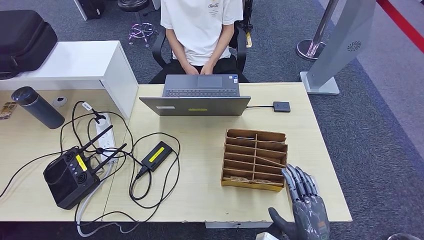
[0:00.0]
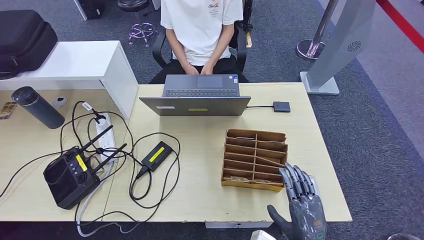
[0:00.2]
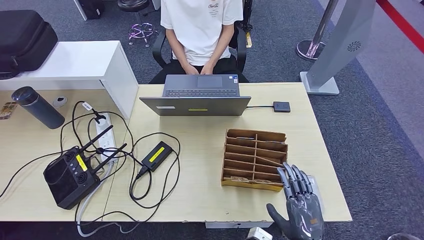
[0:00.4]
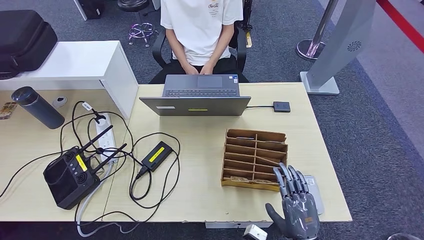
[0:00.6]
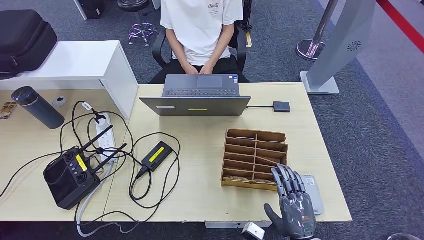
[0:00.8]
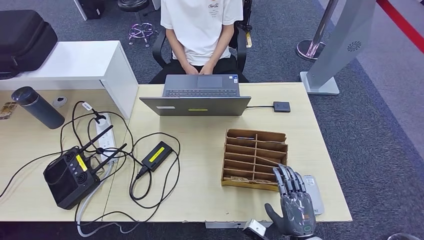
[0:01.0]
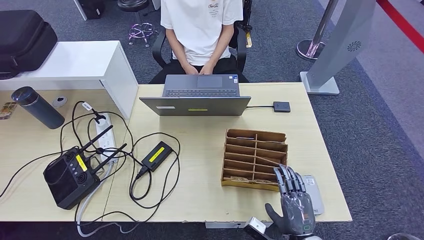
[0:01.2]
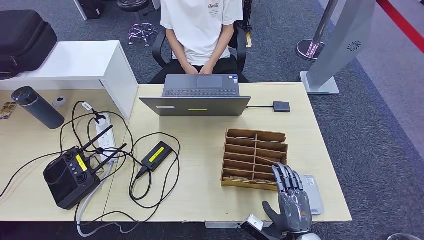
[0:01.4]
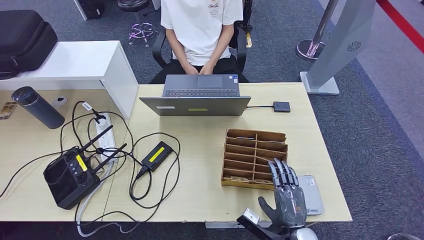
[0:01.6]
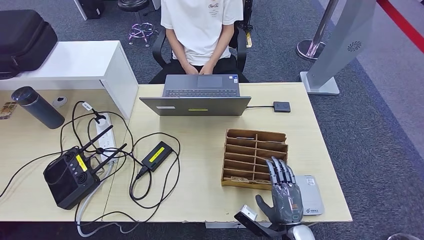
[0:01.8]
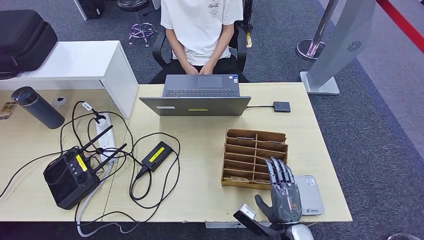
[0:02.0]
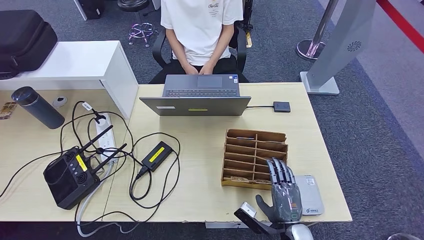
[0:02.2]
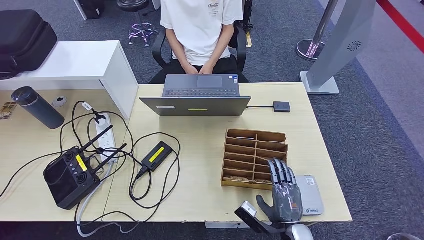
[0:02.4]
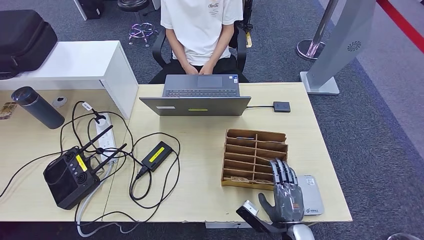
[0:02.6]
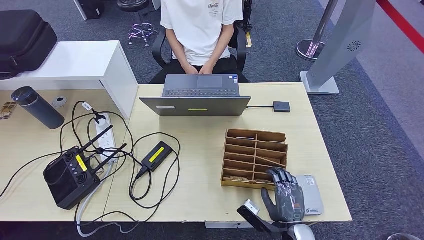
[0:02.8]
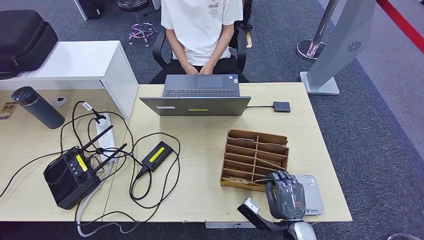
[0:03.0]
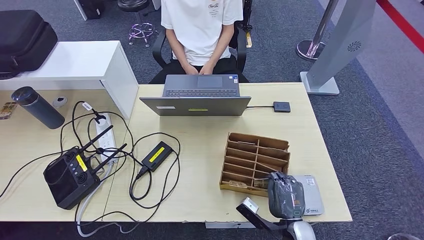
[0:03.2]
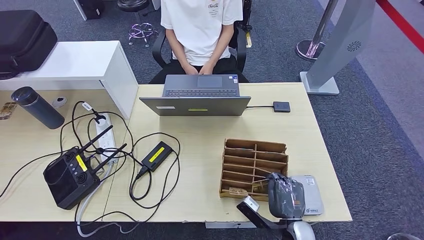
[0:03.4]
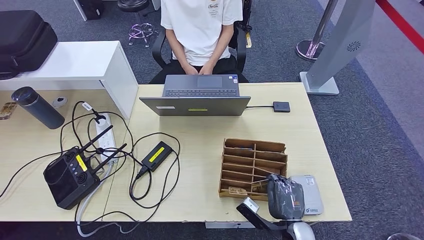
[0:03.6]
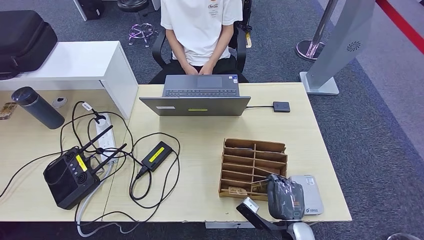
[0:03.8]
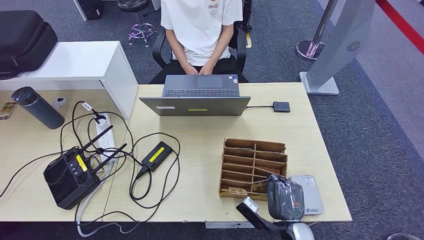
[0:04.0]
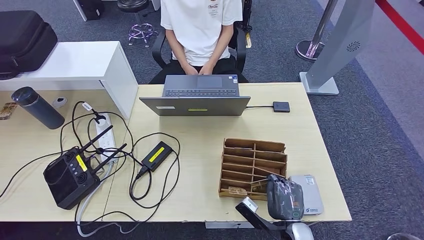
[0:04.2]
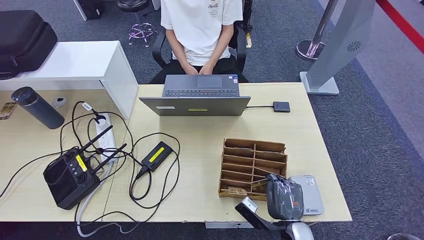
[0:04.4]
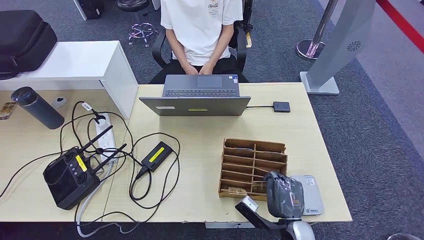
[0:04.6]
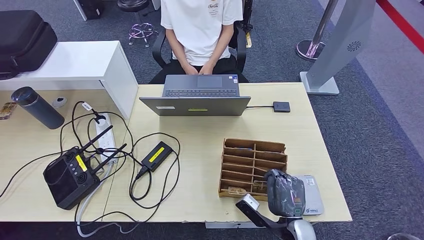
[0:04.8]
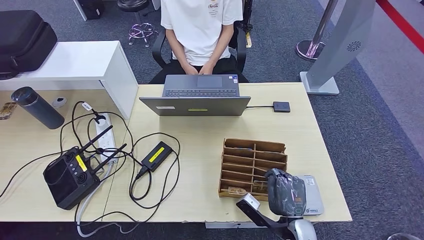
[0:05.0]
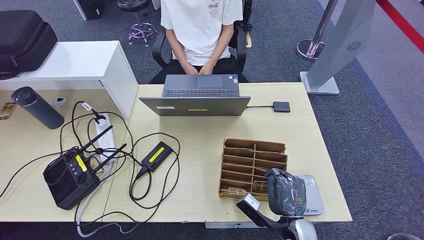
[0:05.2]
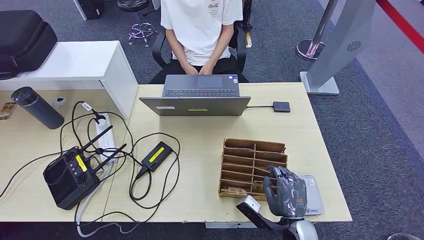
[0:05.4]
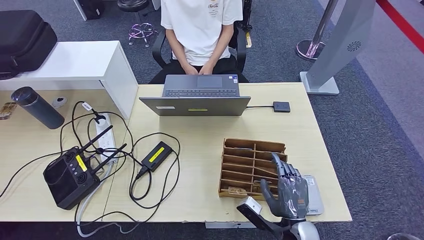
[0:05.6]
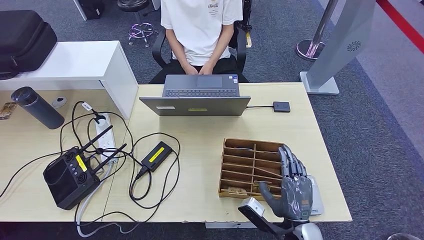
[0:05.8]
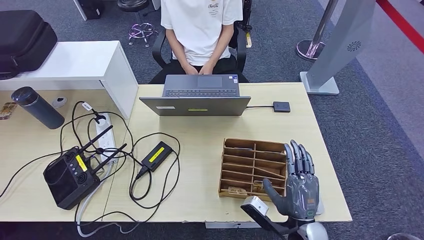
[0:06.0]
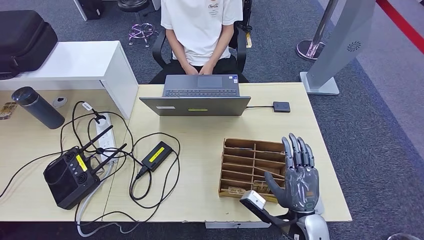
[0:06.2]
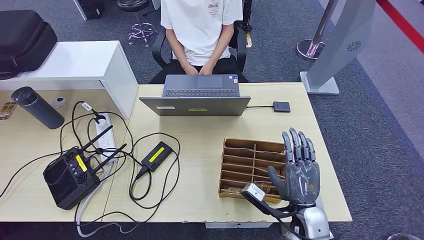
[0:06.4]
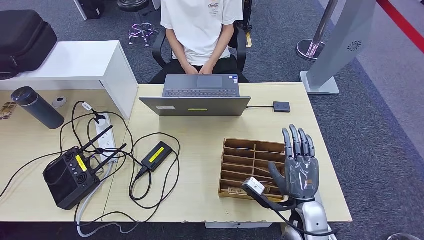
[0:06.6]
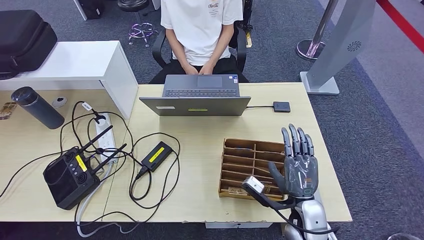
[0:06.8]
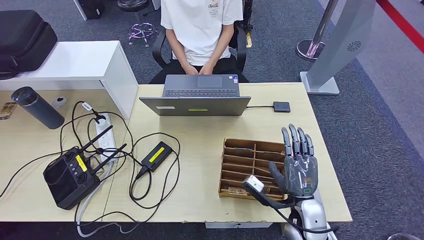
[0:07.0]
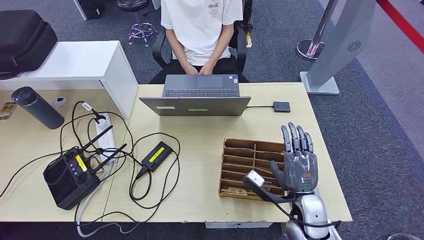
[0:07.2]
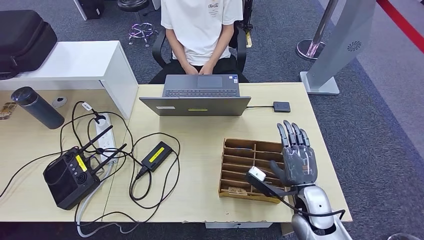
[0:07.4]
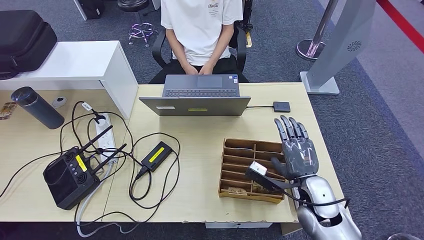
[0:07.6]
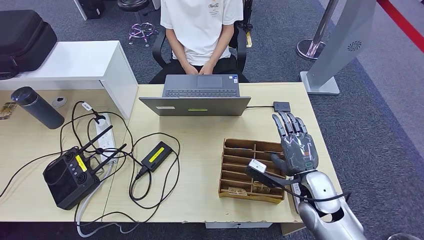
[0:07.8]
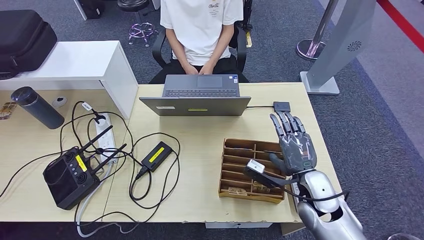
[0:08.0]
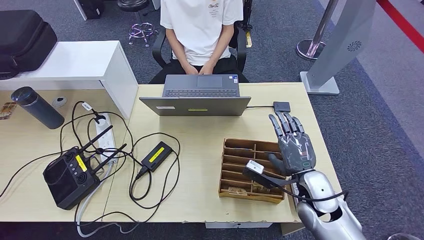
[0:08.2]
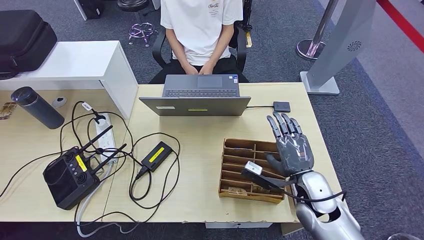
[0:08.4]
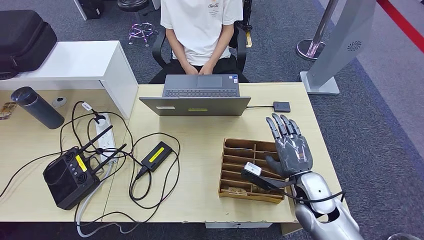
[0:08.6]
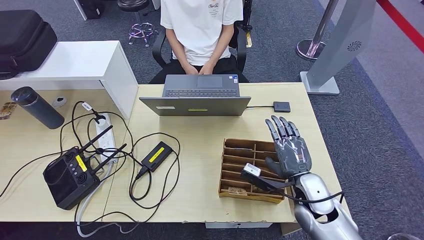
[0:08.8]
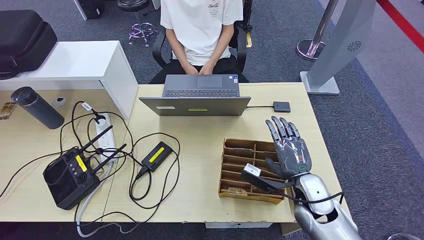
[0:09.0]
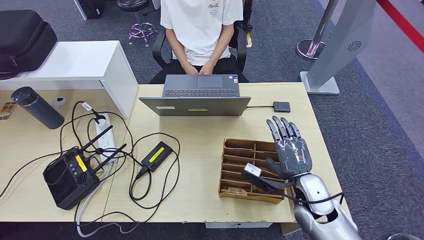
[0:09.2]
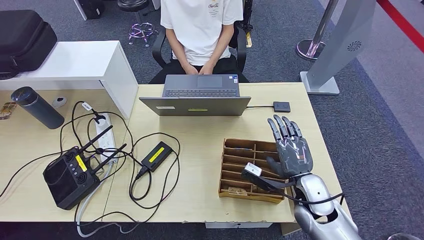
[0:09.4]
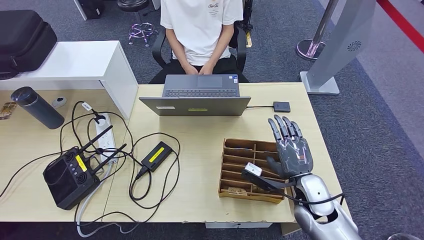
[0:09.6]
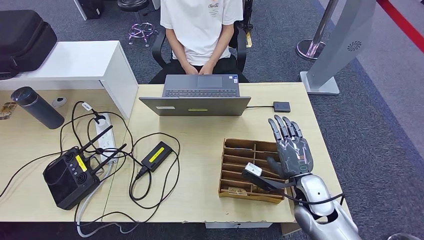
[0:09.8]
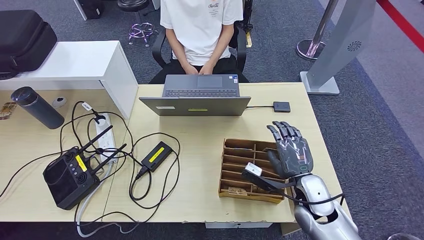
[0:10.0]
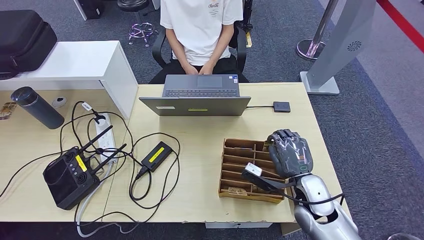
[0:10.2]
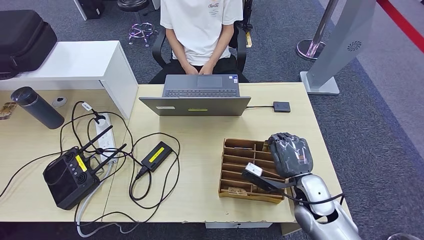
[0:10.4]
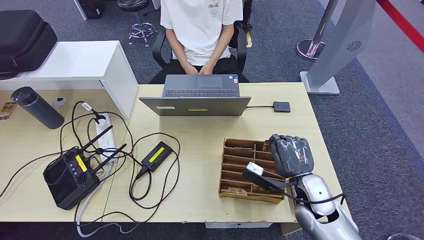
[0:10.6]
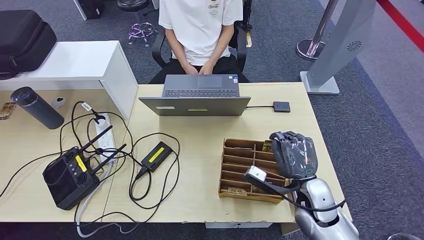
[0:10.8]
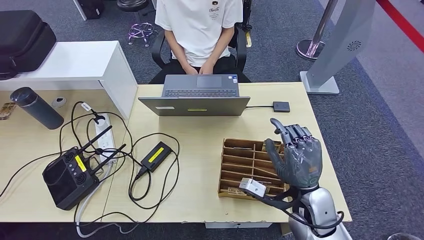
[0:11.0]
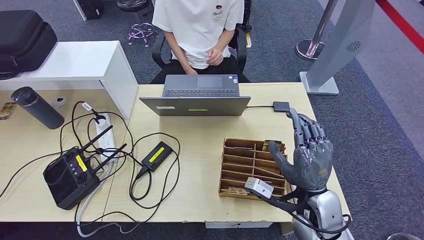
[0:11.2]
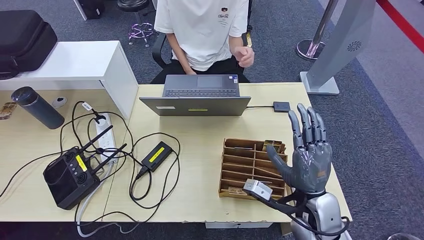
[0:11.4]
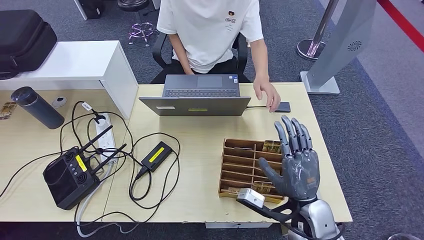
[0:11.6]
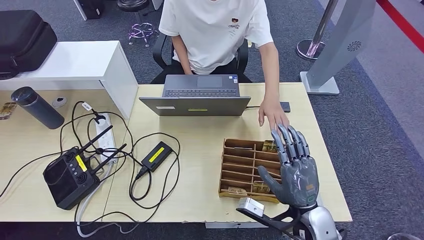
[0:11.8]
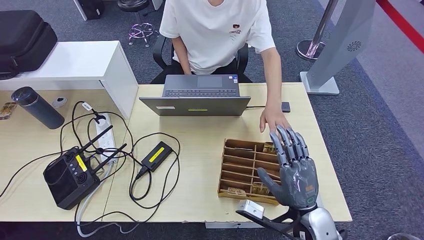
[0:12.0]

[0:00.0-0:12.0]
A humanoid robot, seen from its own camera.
0:00.0 to 0:01.6: The right hand moves about 10 cm.
0:01.6 to 0:03.0: The hands make only small movements.
0:03.0 to 0:04.4: Neither hand changes place.
0:04.4 to 0:06.0: The right hand moves upward, about 5 cm.
0:06.0 to 0:07.6: The right hand moves forward, approximately 10 cm.
0:07.6 to 0:09.0: The hands make only small movements.
0:09.0 to 0:10.4: The two hands keep their place.
0:10.4 to 0:12.0: The right hand shifts some 5 cm backward.

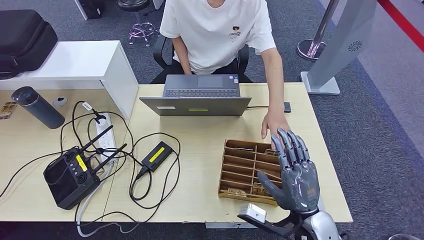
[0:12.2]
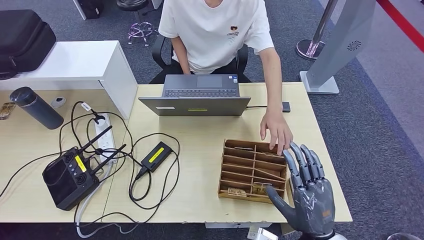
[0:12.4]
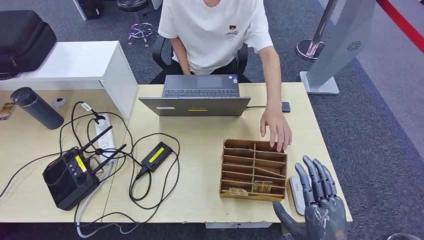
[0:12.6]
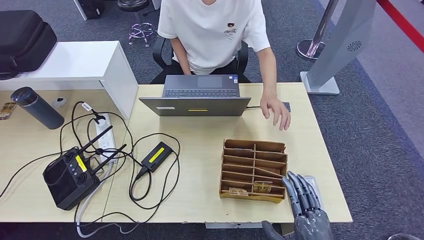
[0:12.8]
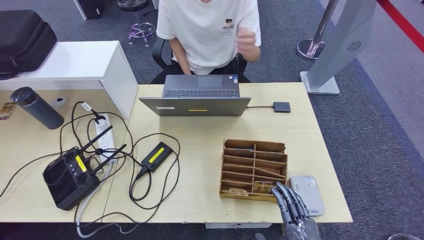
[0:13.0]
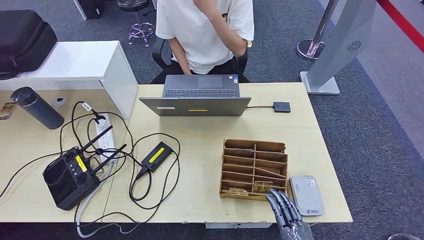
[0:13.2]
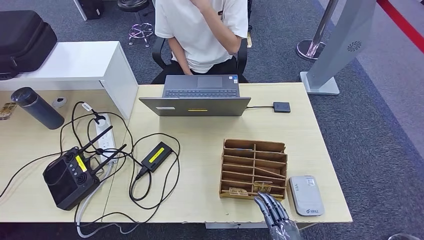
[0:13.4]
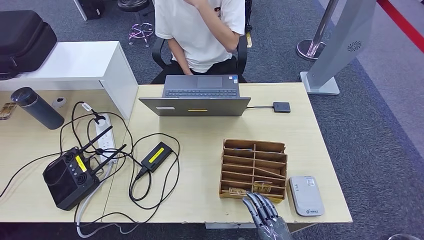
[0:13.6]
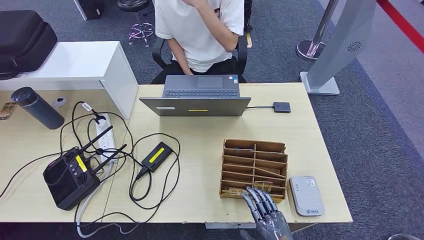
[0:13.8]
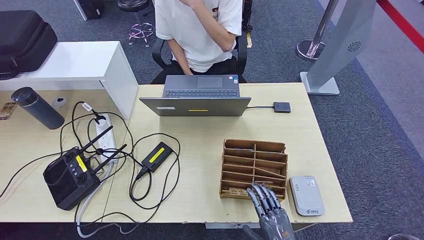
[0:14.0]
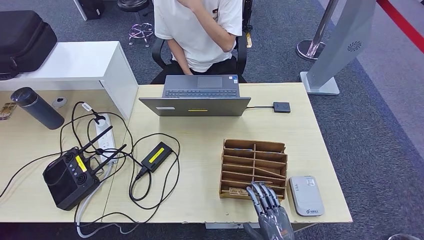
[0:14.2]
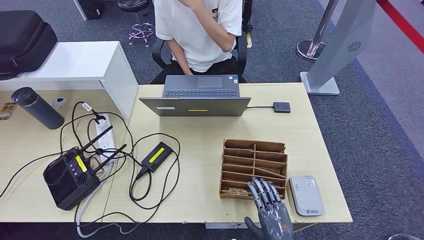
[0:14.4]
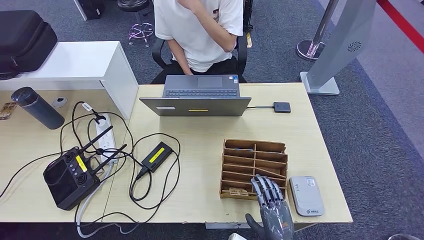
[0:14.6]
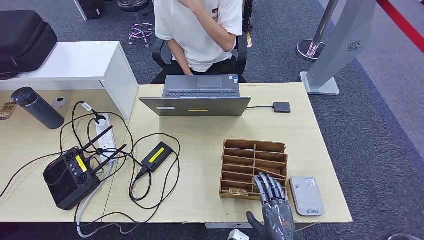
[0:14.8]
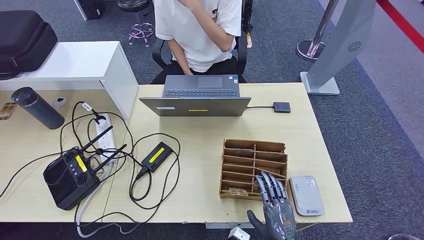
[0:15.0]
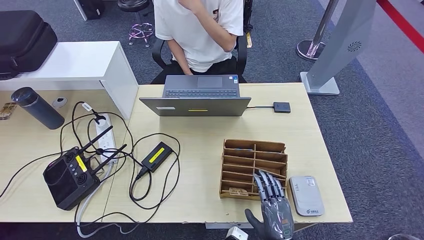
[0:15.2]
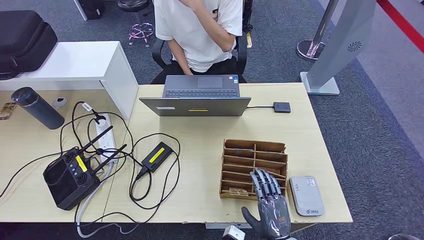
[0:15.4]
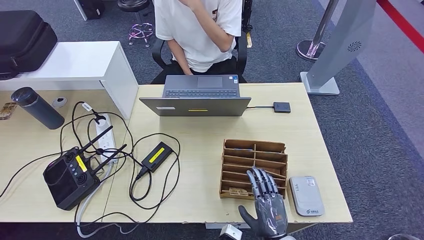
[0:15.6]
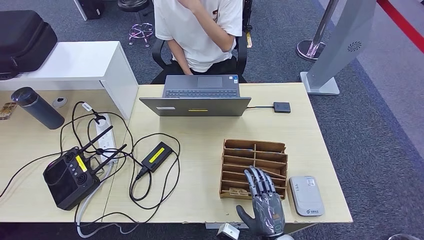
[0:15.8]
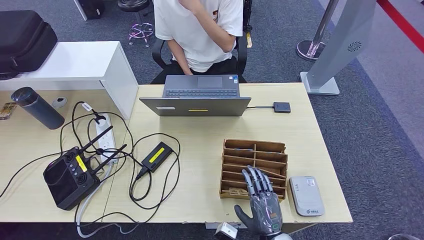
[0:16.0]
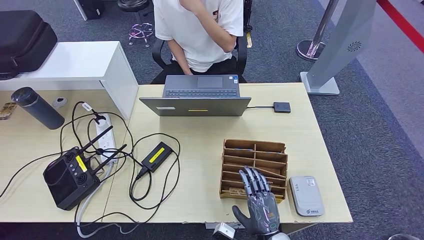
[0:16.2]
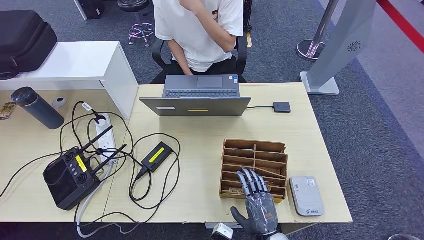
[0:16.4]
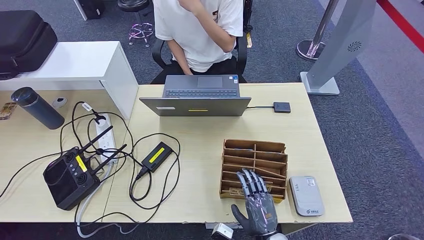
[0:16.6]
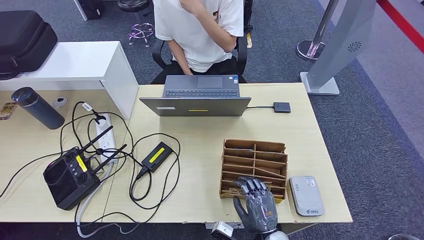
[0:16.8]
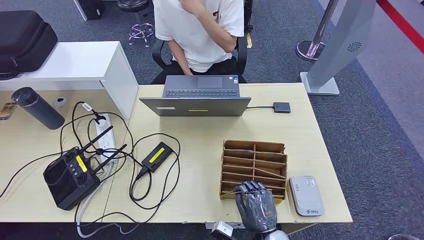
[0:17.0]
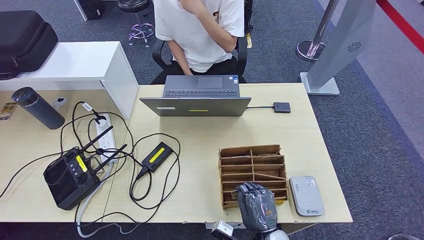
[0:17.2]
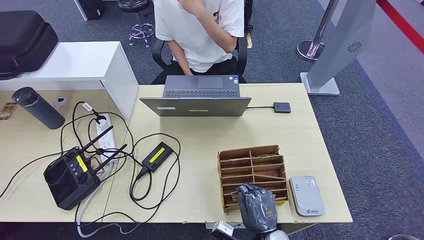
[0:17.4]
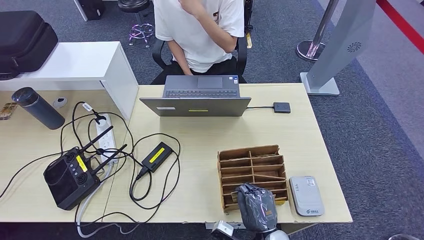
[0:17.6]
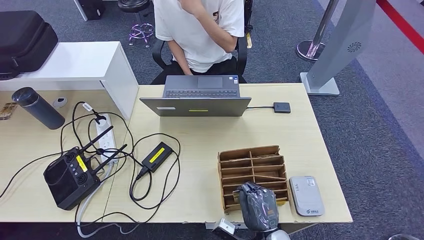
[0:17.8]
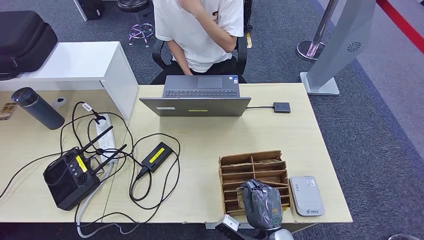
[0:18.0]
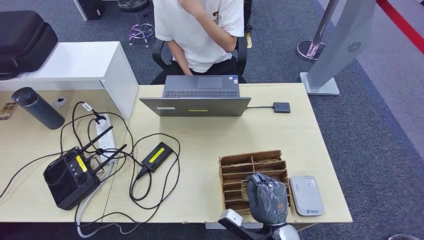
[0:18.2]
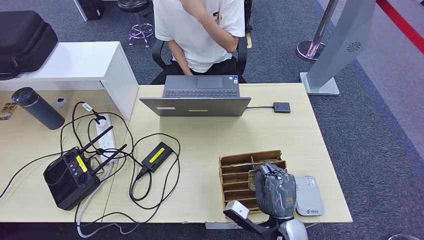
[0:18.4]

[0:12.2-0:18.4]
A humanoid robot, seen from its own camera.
0:12.2 to 0:13.8: The right hand travels downward and backward by some 15 cm.
0:13.8 to 0:15.4: The right hand moves roughly 5 cm.
0:15.4 to 0:16.8: The hands stay close to where they were, moving slightly.
0:16.8 to 0:18.4: The right hand shifts about 5 cm upward.
